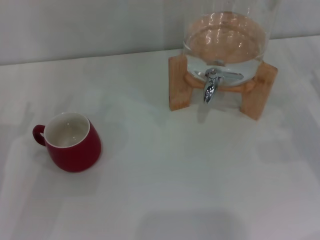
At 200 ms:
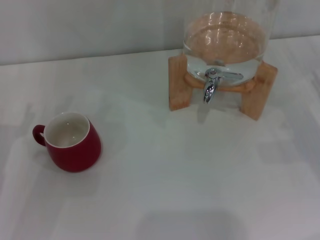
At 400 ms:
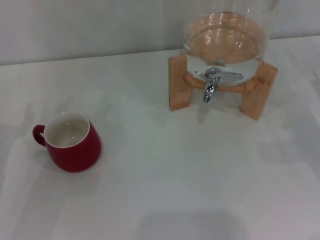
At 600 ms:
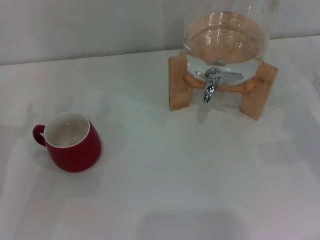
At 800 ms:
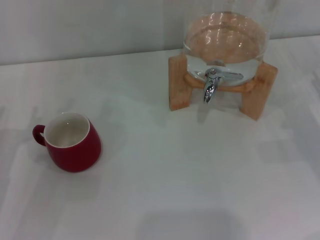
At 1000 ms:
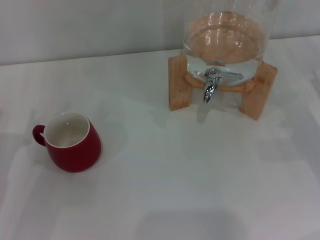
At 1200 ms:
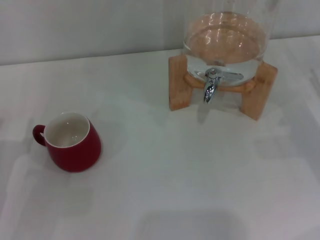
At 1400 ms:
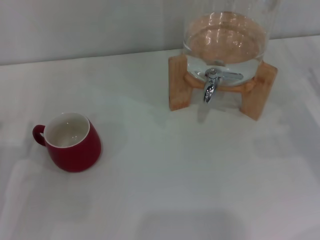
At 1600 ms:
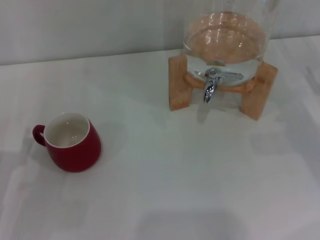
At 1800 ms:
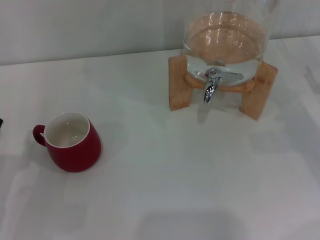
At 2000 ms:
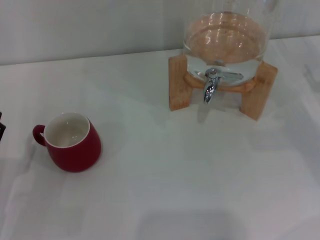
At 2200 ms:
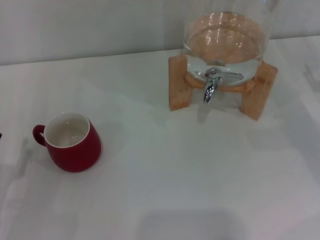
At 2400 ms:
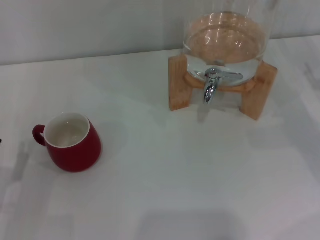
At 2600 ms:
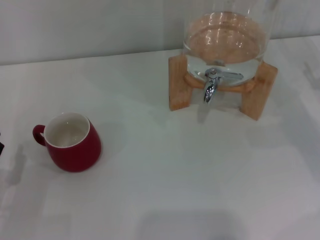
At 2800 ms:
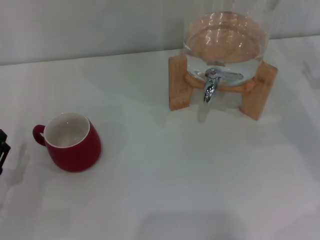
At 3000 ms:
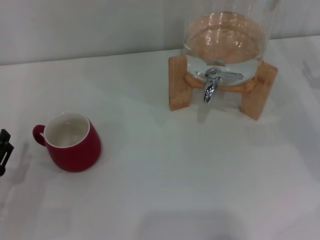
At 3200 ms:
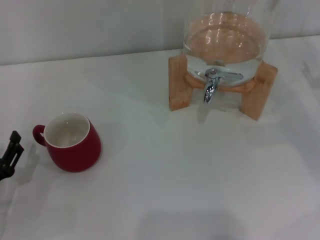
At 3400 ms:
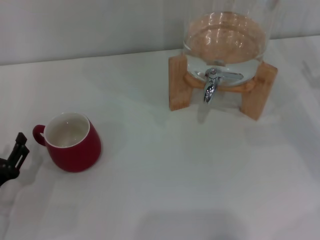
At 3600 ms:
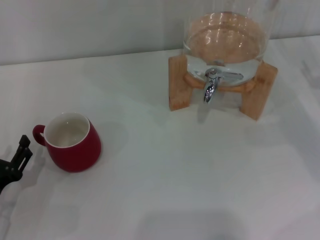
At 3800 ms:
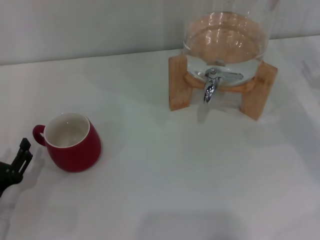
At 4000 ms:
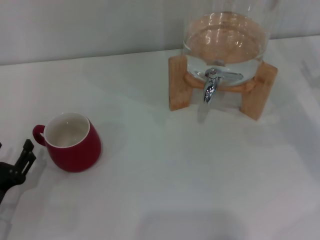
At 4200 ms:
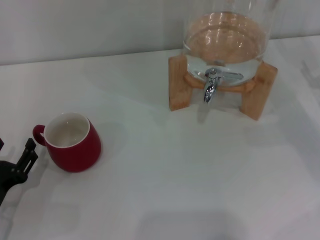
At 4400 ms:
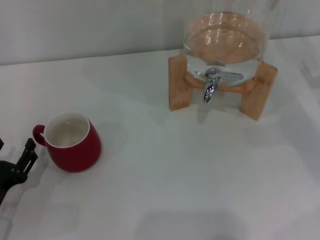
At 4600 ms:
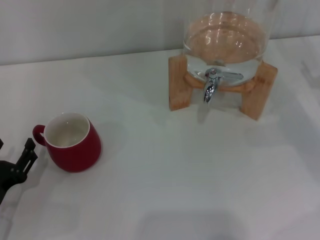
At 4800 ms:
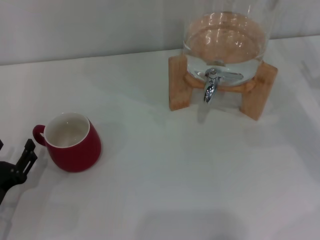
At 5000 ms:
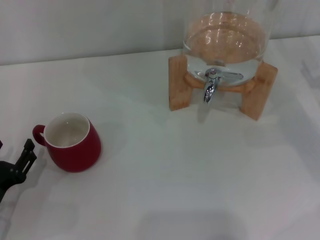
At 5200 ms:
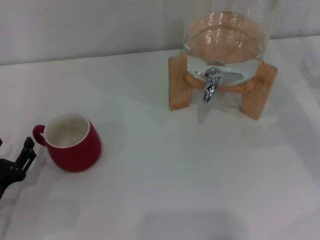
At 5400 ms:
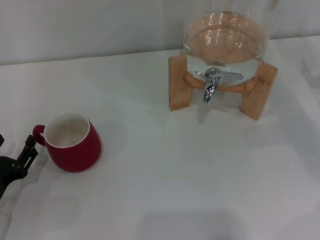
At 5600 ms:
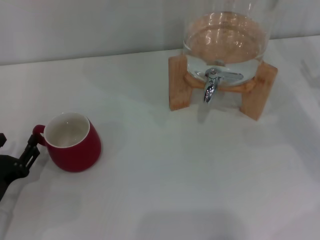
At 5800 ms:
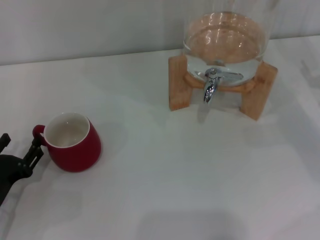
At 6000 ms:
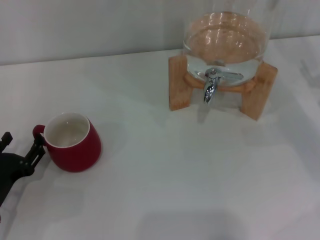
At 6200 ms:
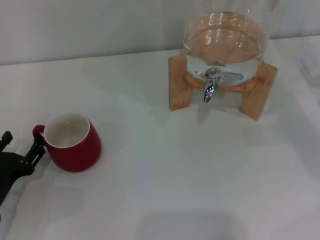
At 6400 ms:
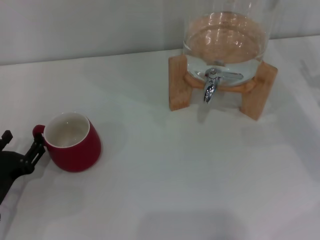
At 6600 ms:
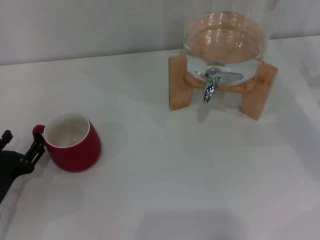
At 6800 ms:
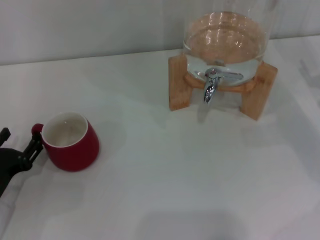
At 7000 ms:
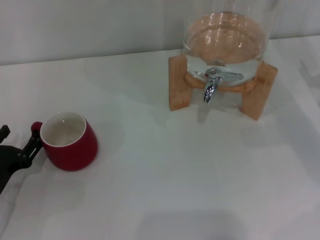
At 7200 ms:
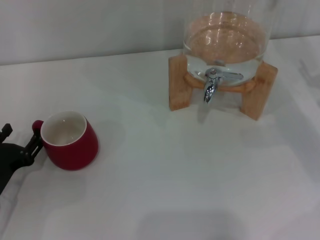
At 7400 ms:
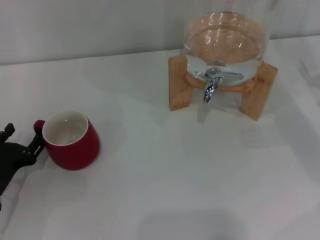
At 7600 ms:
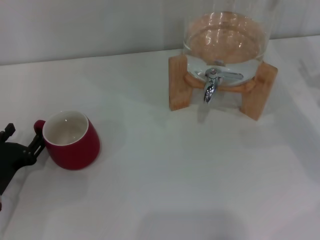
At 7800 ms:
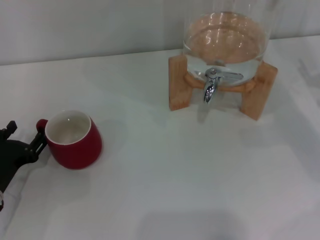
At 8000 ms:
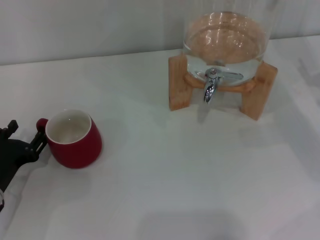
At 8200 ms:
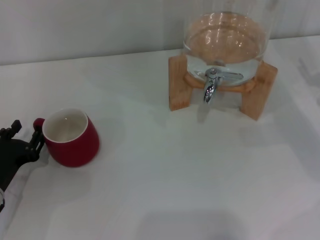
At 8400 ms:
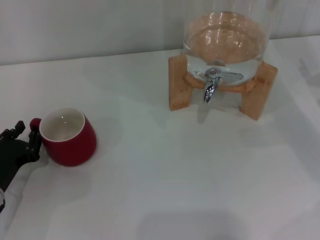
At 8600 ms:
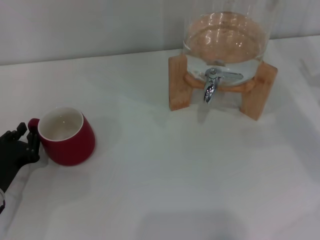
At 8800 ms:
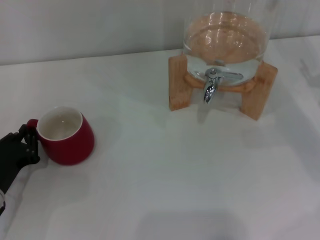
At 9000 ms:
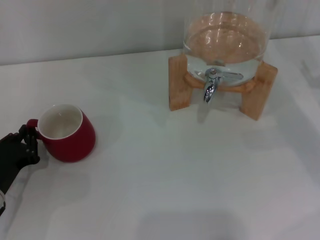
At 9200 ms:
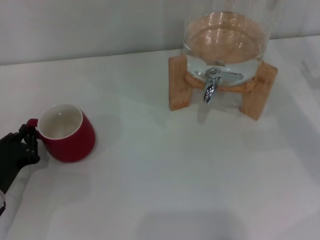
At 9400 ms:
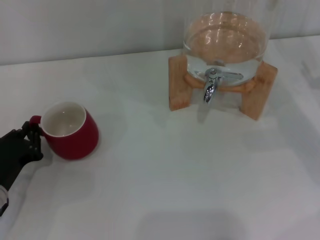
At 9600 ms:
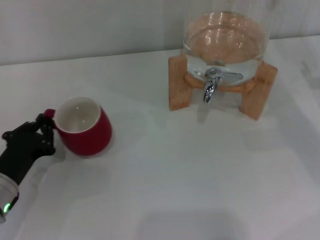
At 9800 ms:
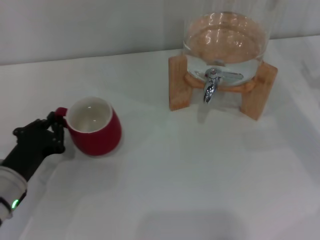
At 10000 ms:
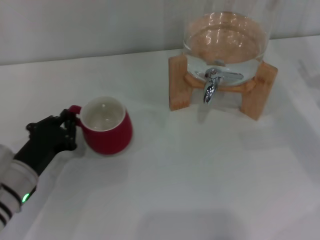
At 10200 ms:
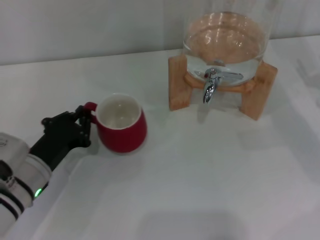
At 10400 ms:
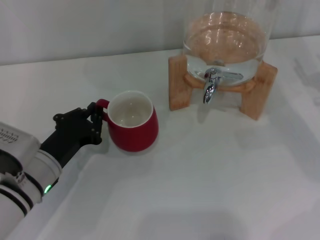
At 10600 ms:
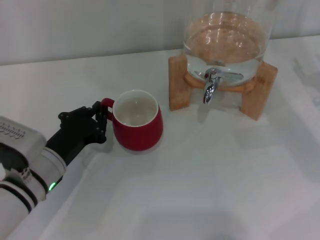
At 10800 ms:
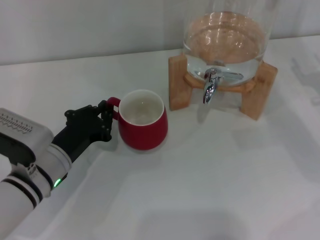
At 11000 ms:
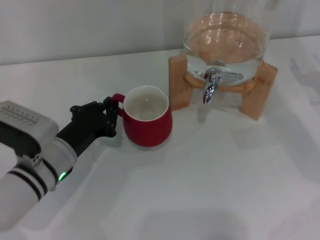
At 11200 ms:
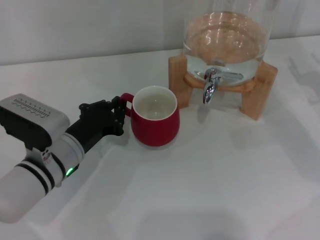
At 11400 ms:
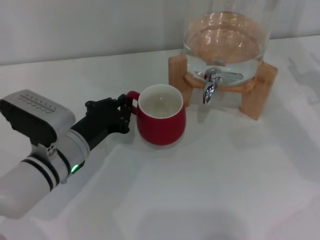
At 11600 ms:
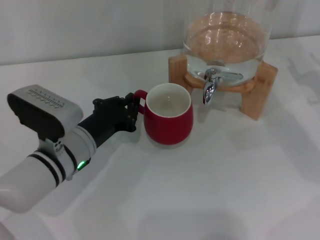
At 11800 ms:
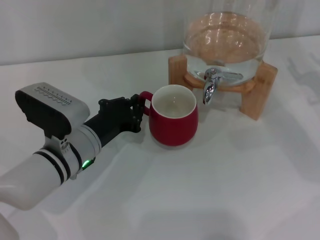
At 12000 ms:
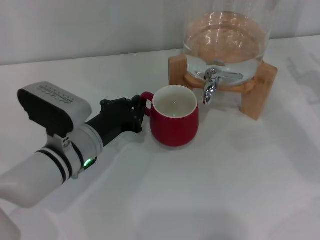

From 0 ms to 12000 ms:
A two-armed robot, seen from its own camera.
Task of the whole recording: the left gripper pick up the red cup and place it horizontally under the faucet, the right gripper turn on the faucet to fill the cup, and then turn off the faucet.
From 3000 ms to 7600 ms: The grippers move only a little.
From 7600 ms to 9000 ms: The left gripper closes up.
From 9000 ms to 10400 ms: The left gripper shifts about 10 cm to the right.
From 10400 ms to 12000 ms: The left gripper shifts some 5 cm to the right.

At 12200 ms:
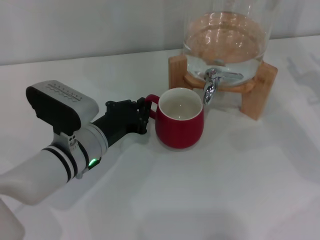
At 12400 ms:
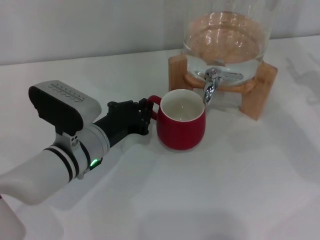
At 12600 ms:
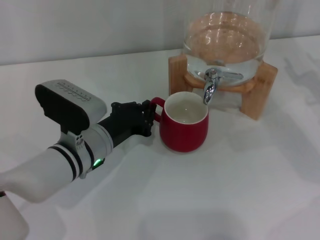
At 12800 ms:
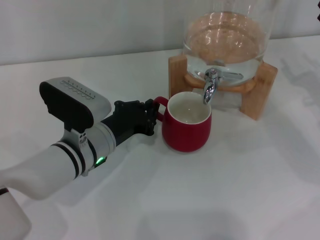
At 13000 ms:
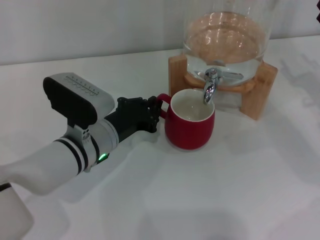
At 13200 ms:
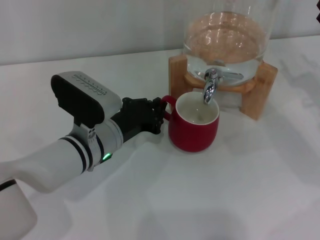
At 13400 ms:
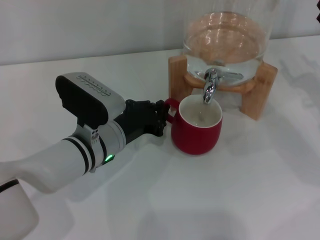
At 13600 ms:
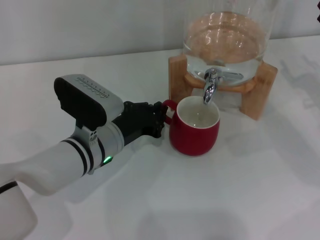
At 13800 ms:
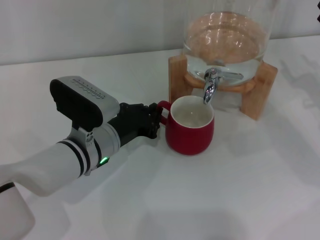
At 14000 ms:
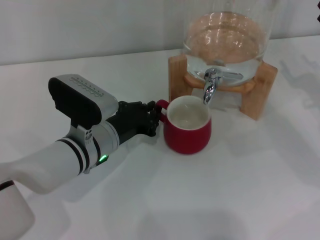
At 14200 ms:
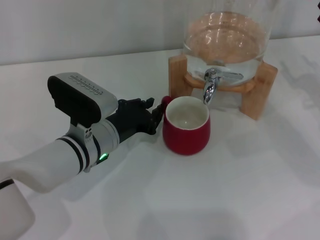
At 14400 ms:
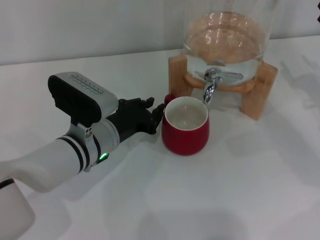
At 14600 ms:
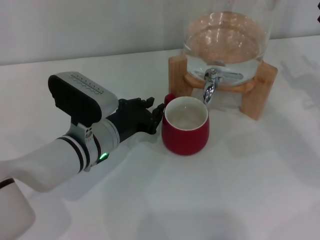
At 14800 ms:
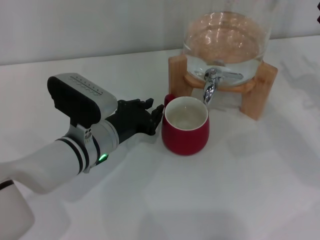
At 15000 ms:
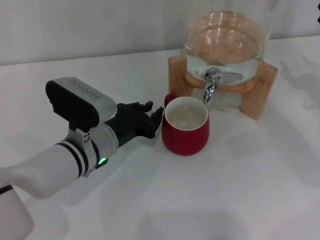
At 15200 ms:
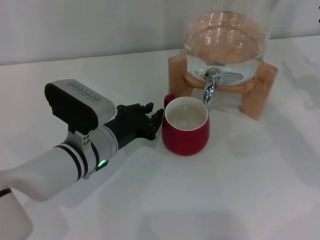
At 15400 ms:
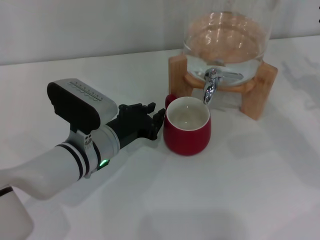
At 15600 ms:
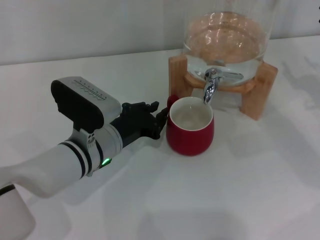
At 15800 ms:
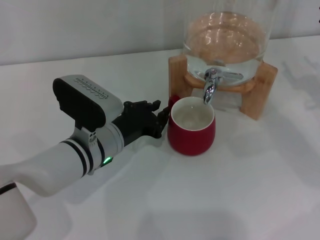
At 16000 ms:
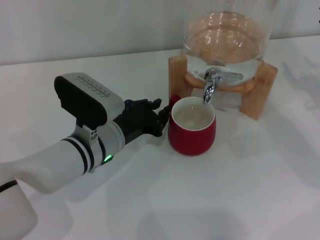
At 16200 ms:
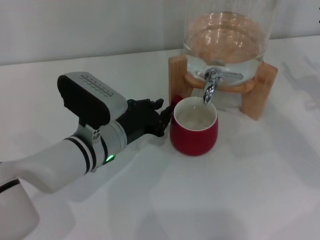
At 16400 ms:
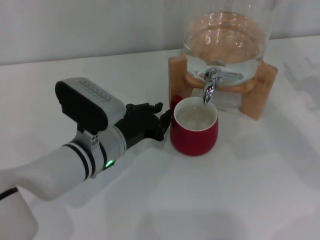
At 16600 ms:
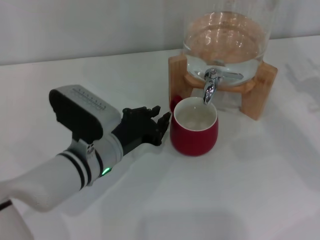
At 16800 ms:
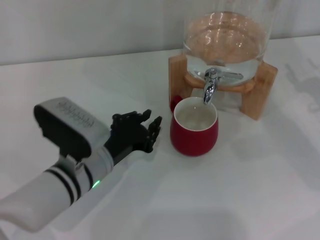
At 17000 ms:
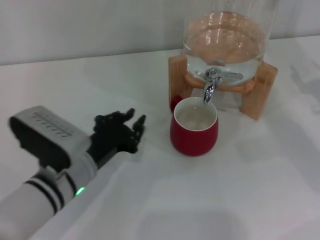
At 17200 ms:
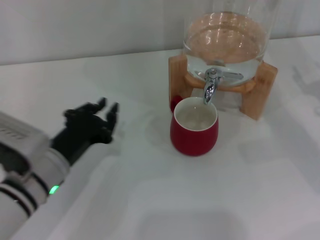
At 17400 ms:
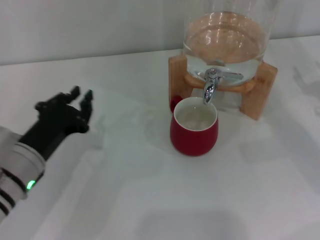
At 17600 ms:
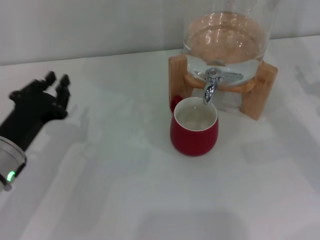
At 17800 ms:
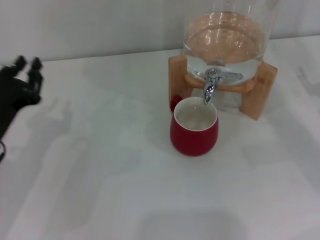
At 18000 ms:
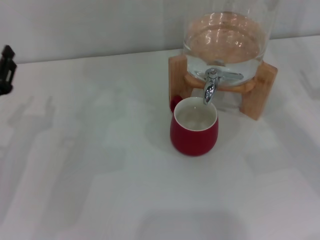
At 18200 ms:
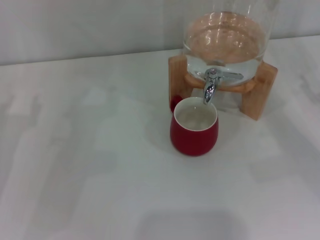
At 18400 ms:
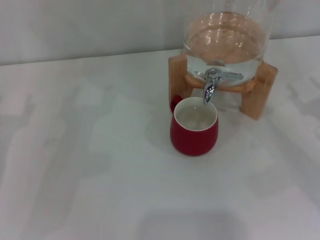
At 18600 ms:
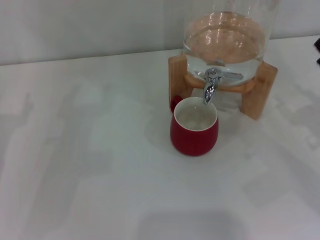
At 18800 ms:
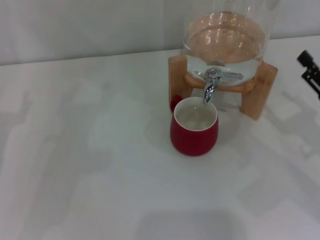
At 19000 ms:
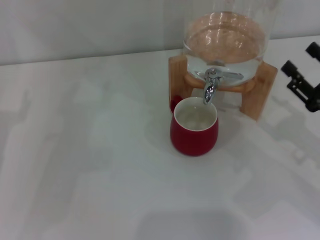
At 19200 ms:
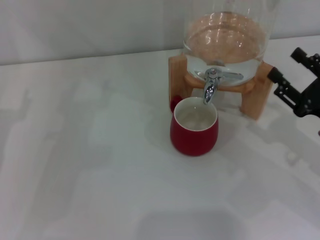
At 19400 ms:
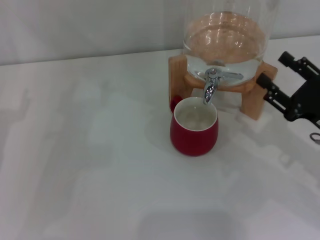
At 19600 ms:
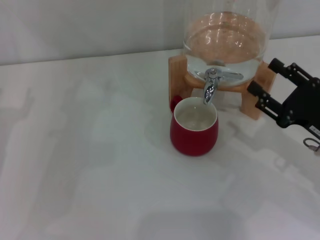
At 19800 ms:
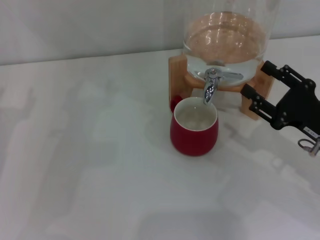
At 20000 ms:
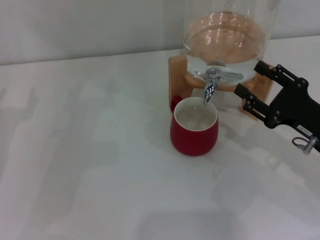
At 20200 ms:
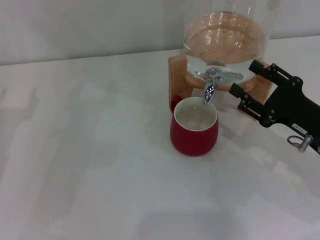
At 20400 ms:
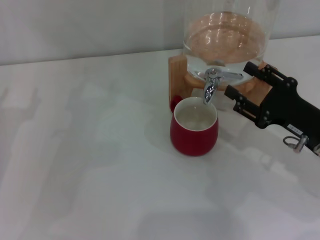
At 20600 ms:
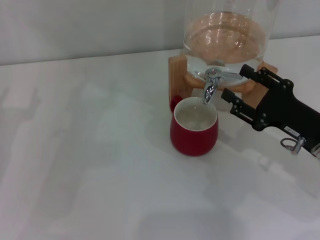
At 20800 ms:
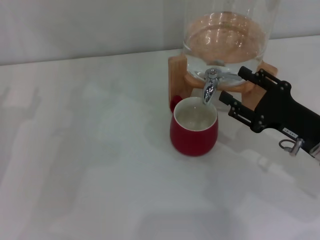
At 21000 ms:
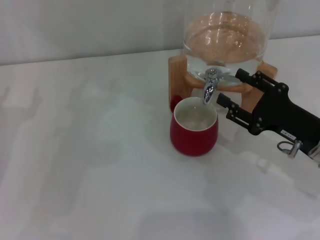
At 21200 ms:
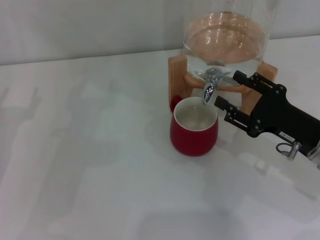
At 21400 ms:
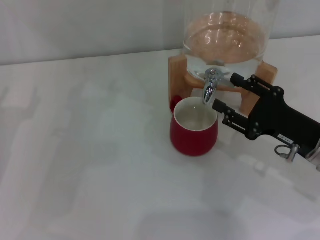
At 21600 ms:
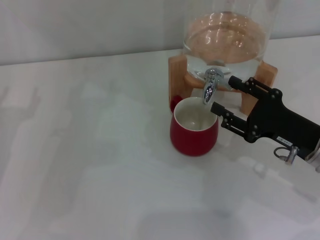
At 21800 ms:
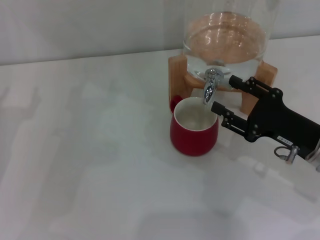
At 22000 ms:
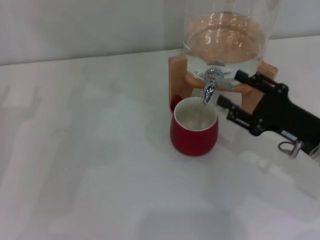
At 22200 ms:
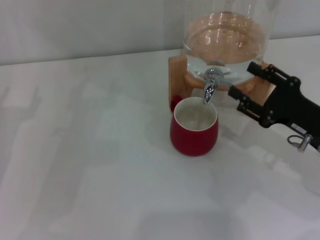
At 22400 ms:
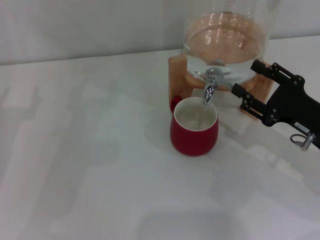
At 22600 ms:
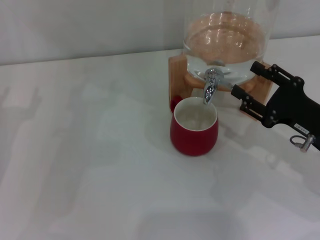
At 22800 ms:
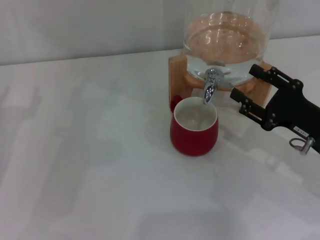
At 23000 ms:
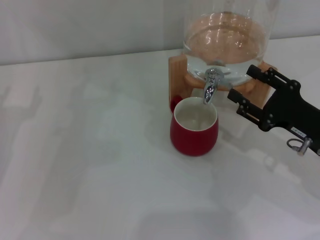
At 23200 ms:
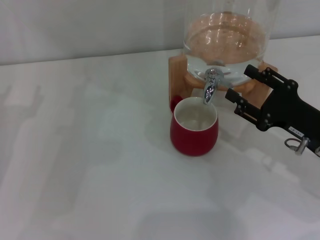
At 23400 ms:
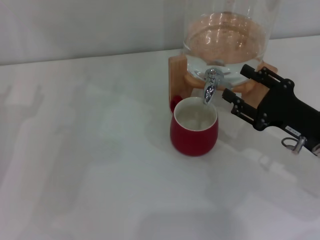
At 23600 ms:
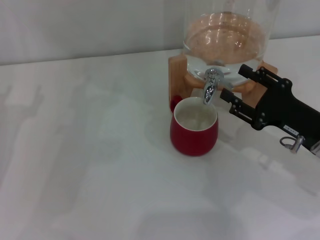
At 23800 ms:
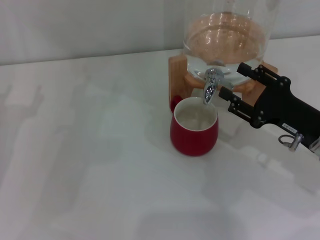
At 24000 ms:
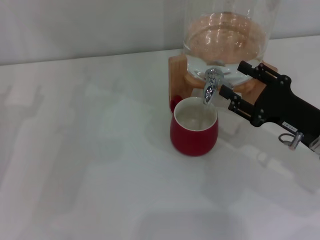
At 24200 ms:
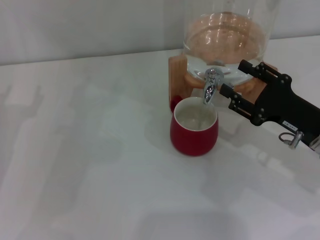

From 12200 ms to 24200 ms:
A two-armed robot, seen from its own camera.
Task of the whole recording: the left gripper pick up the red cup and place it horizontally under the faucet, the right gripper turn on the faucet to fill the cup, and then turn off the faucet.
Step, from 12200 ms to 15000 ms: Move the cup beneath the water dispenser nozzle with the left gripper.
Step, from 15400 ms to 21800 ms: Open the dispenser valve and fill the cup with water with the right gripper.
From 12200 ms to 13800 ms: The grippers stay close to where they were, moving slightly.
From 13800 ms to 15200 ms: Both grippers stay about where they are.
From 15200 ms to 16600 ms: The grippers stay close to where they were, moving slightly.
From 16600 ms to 18200 ms: The left gripper shifts roughly 20 cm to the left.
From 18200 ms to 19800 ms: The right gripper heads to the left, covering some 10 cm.
From 19800 ms to 24200 ms: The grippers stay close to where they were, moving slightly.
